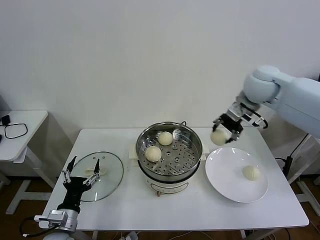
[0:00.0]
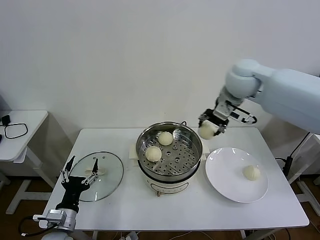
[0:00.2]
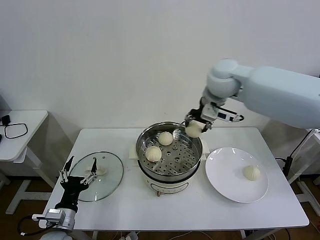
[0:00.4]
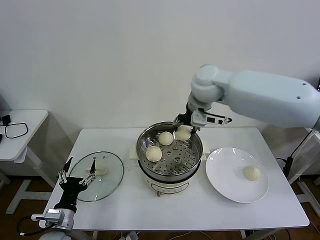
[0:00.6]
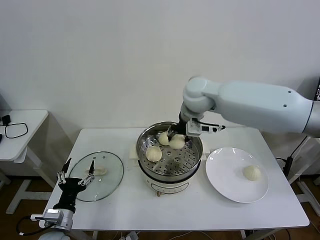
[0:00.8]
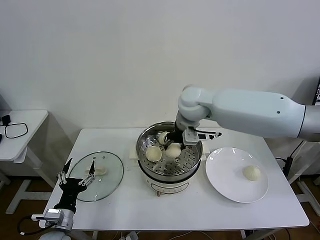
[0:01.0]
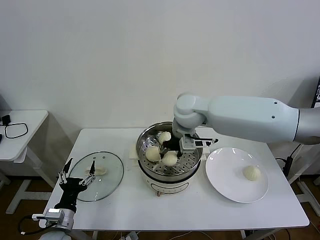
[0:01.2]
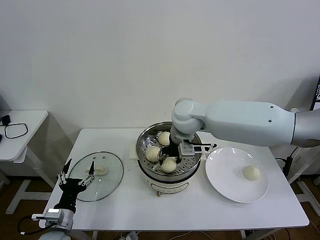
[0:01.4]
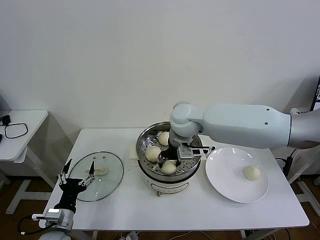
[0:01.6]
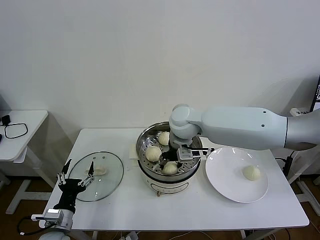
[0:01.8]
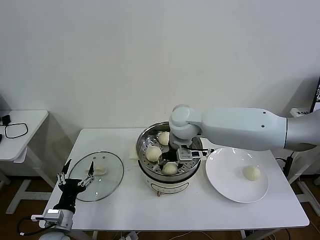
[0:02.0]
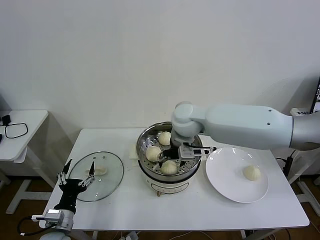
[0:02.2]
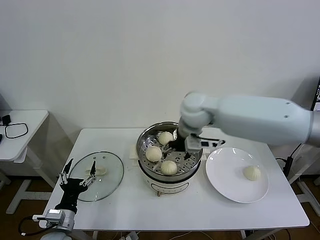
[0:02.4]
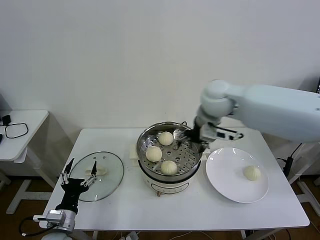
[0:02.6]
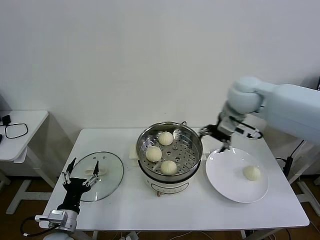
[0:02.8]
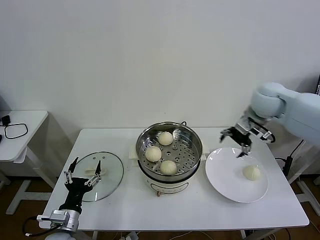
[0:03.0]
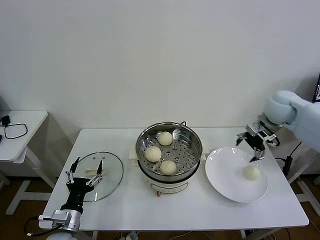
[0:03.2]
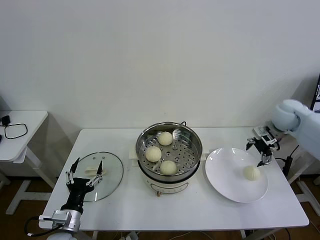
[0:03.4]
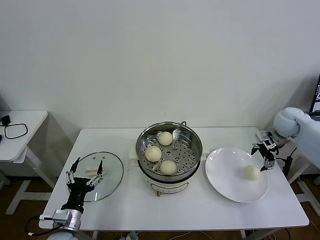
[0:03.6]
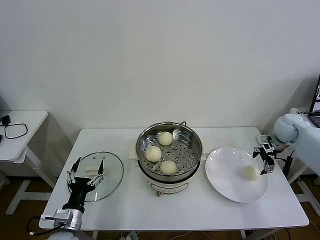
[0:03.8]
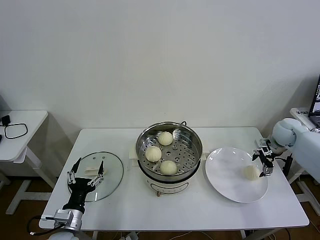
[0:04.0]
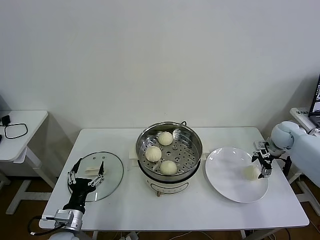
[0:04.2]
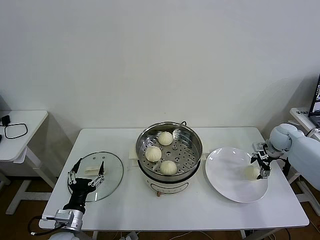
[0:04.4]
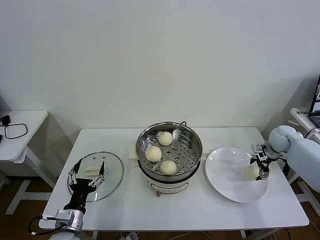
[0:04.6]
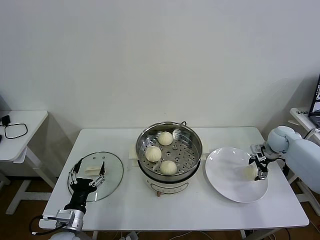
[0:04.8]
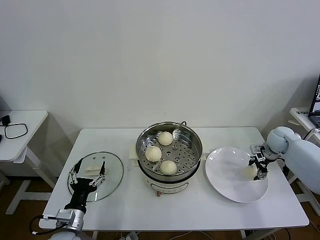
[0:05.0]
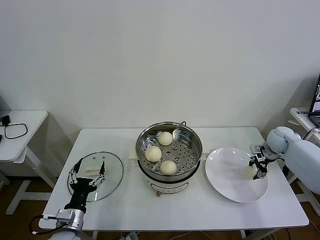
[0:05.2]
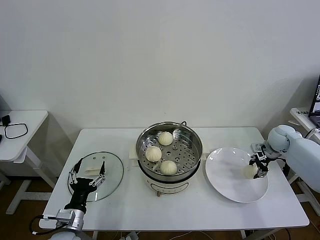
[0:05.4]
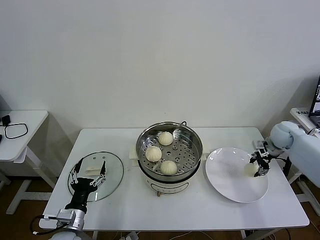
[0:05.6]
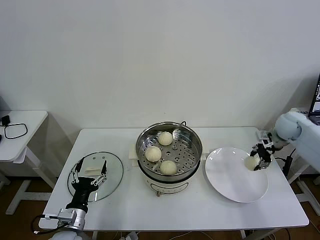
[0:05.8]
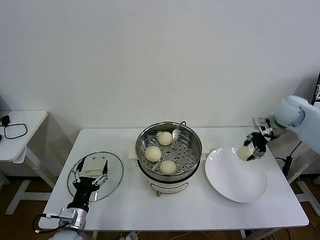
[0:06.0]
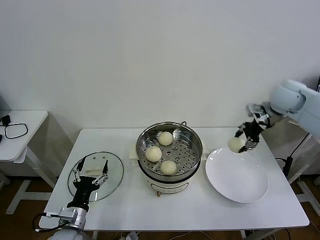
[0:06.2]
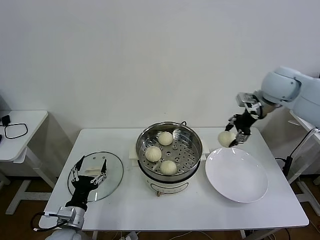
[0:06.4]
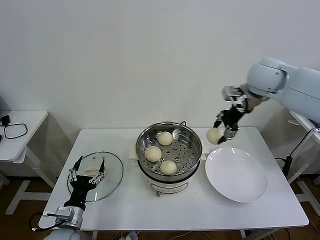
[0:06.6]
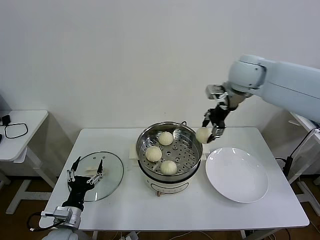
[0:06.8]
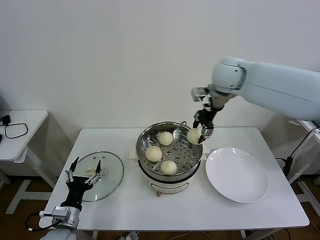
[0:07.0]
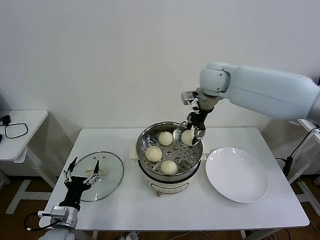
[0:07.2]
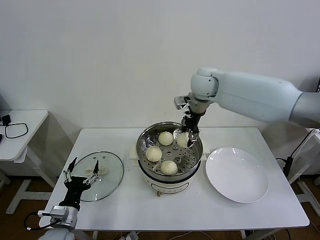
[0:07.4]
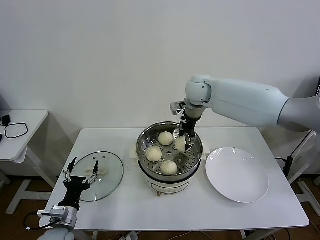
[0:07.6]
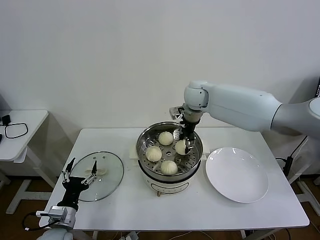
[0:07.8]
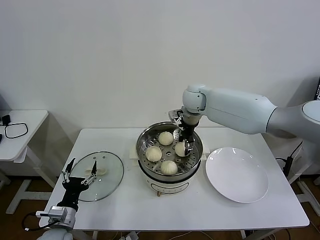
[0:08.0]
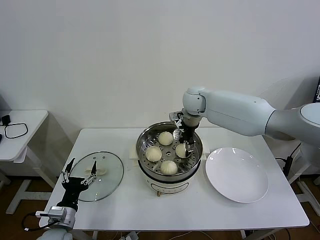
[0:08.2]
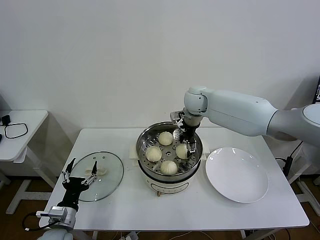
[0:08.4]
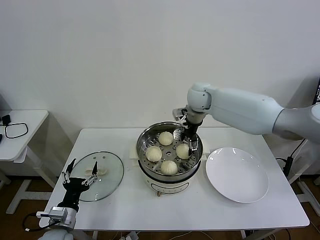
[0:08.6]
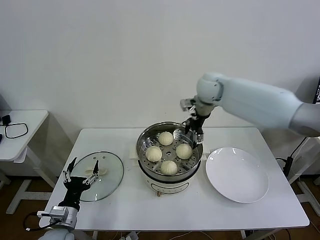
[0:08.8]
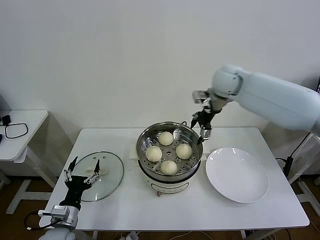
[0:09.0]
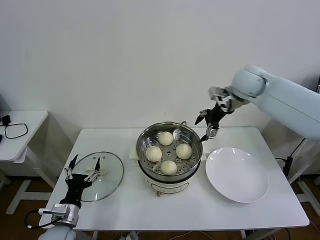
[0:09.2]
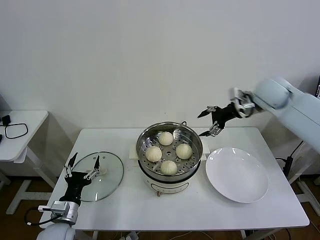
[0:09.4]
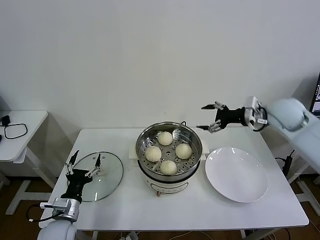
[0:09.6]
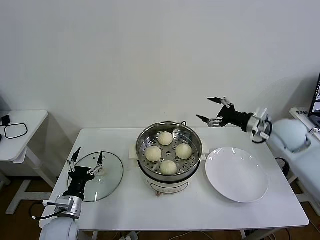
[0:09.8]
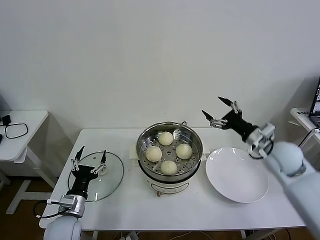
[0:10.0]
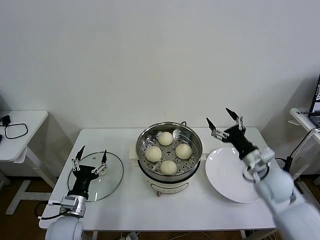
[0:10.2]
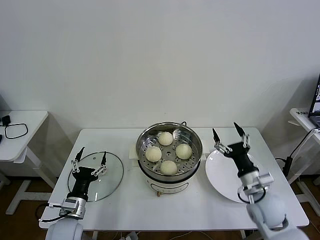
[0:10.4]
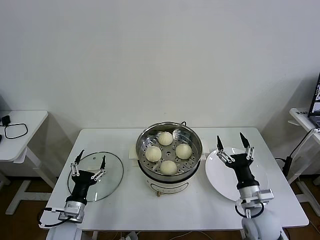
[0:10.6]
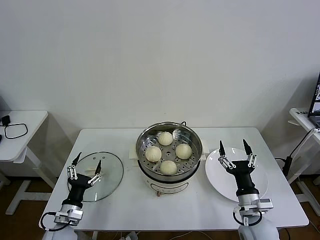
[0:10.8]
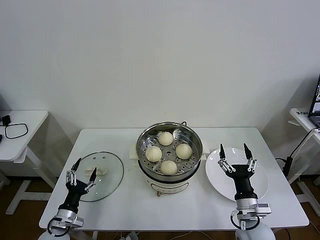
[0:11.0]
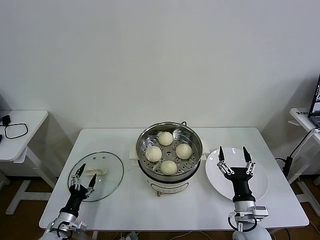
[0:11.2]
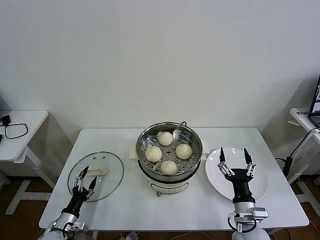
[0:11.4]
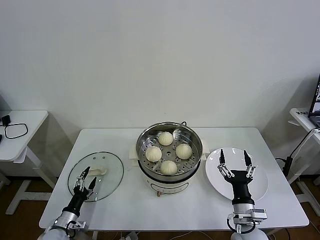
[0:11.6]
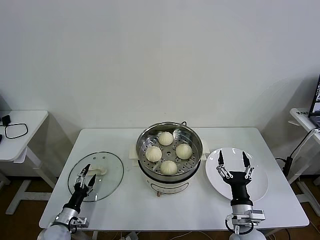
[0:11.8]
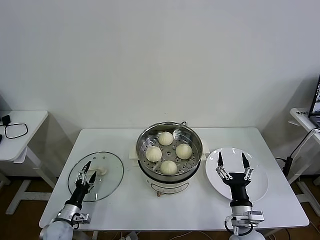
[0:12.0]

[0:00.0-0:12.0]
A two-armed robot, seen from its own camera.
Task of the whole recording: take steamed baozi put them in steamer then cover it.
Step, 0:00.0 to 0:02.0: Place the baozi on the steamer with right gripper.
Step, 0:02.4 to 0:05.0: Grasp the baozi in the plate with right gripper.
Step, 0:05.4 to 0:08.4: Place the baozi on the steamer with right gripper.
0:00.0 to 0:01.6: The right gripper goes some 20 cm to the left and downward.
0:01.6 to 0:03.0: The right gripper moves to the right, about 25 cm, and opens.
0:03.0 to 0:04.4: The right gripper heads downward and to the right, covering roughly 25 cm.
0:04.4 to 0:06.0: The right gripper is displaced upward by some 15 cm, and closes its fingers.
0:06.0 to 0:07.6: The right gripper heads to the left, covering roughly 30 cm.
0:07.6 to 0:09.0: The right gripper heads to the right, covering approximately 10 cm, and opens its fingers.
0:09.0 to 0:10.4: The right gripper heads backward and downward, covering about 40 cm.
0:10.4 to 0:12.0: The left gripper moves downward and to the left, approximately 15 cm; the right gripper travels backward, downward and to the left by roughly 15 cm.

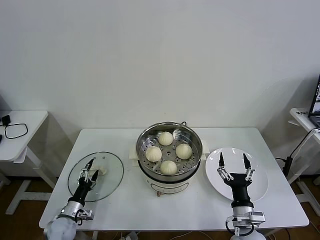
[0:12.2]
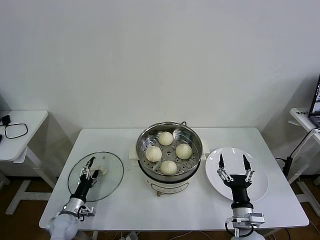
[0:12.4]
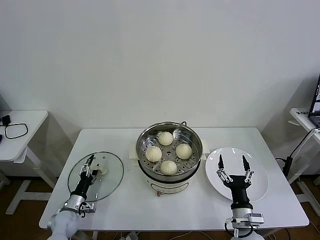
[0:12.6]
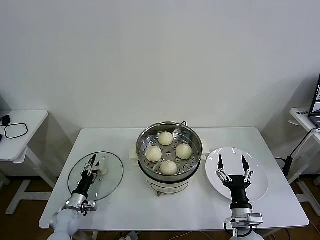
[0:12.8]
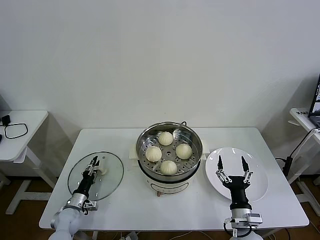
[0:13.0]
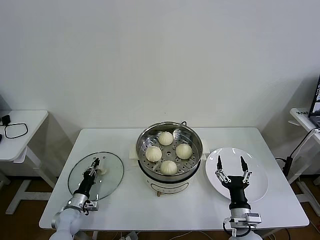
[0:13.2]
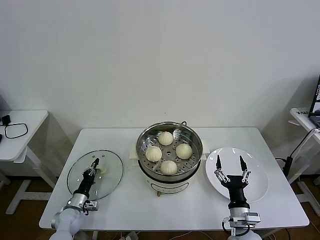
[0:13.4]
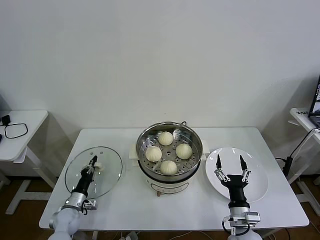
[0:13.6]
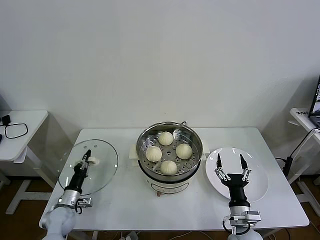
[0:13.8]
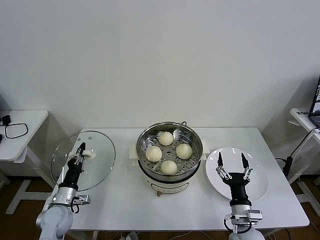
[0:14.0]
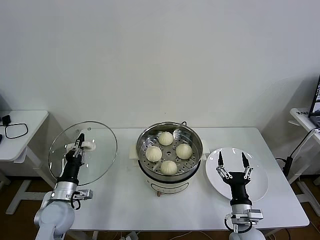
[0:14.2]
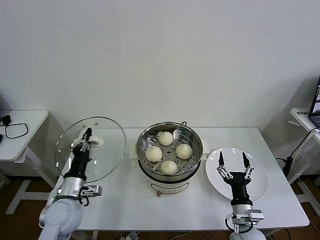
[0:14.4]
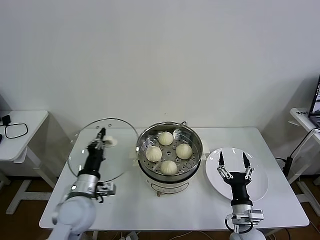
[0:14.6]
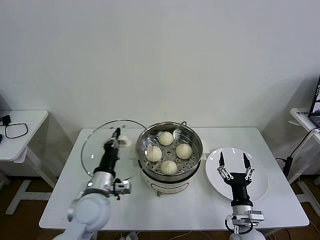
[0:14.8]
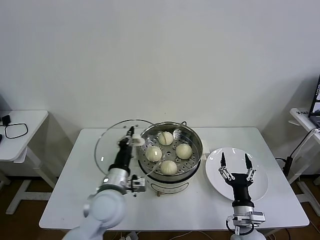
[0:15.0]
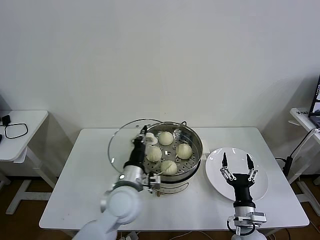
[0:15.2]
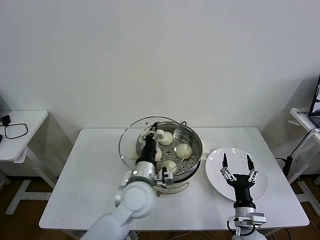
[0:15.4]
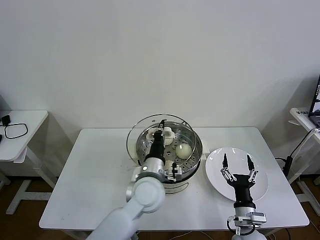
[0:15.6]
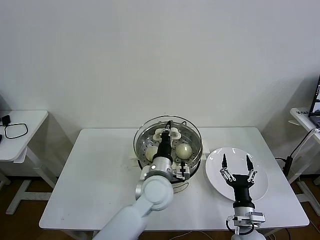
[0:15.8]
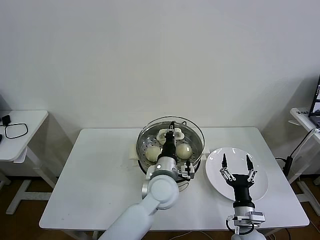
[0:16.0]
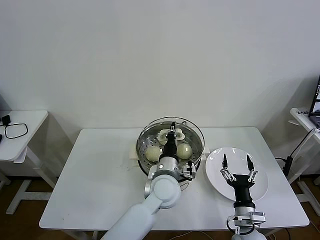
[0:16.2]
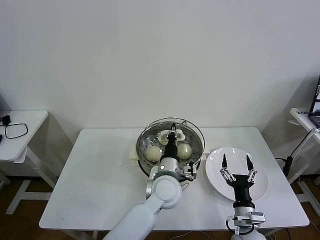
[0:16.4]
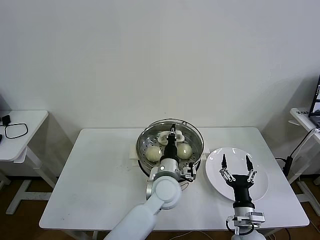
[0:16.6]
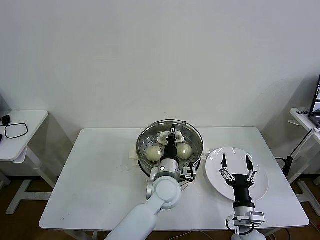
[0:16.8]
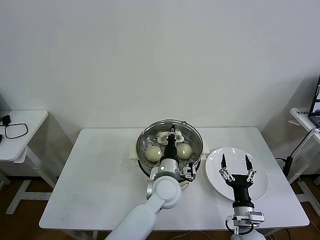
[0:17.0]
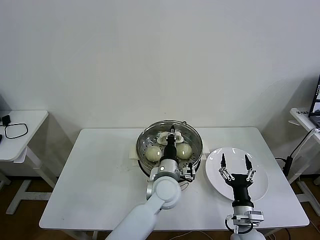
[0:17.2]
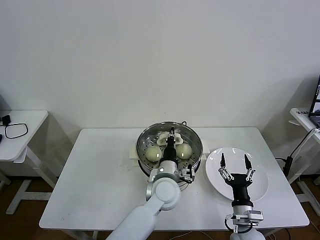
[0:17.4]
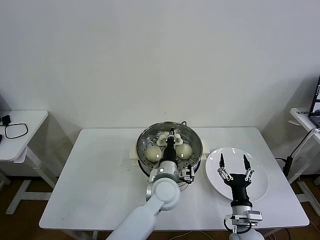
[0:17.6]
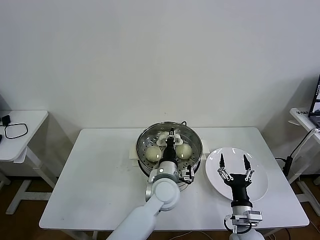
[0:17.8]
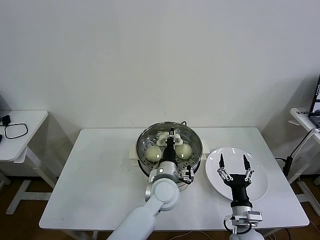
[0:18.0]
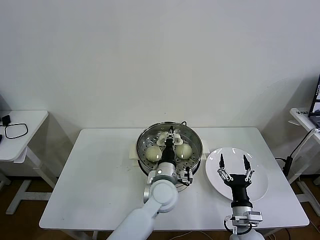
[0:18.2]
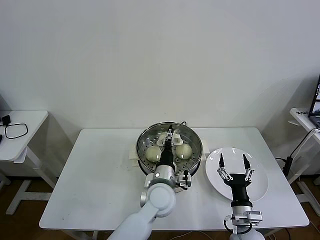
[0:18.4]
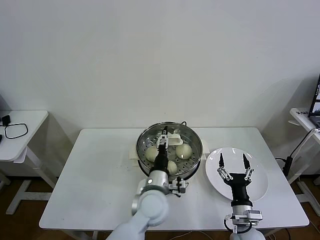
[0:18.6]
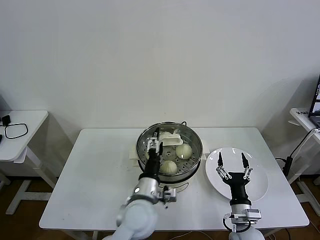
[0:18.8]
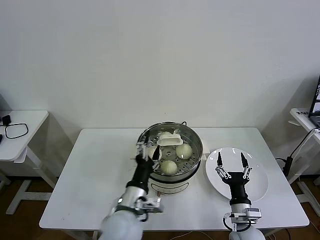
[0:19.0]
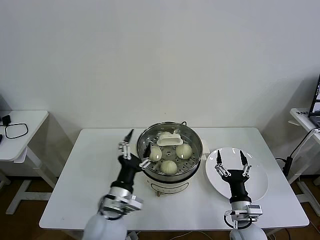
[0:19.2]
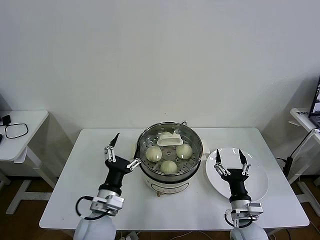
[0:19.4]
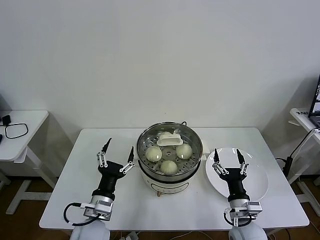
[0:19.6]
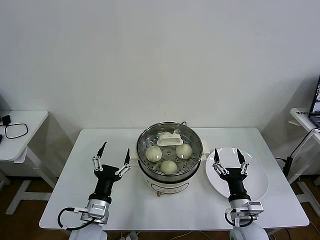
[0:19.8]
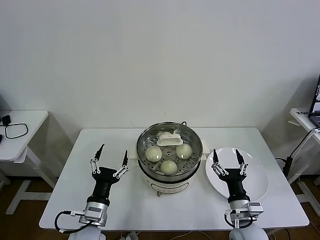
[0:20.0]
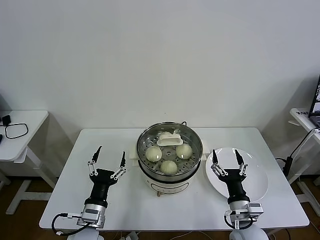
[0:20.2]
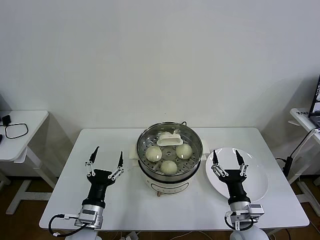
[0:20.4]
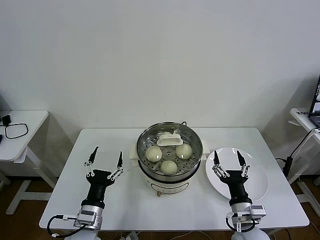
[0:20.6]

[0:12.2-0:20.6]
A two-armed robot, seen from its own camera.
Task of the whole recording: take steamed baozi put them in steamer then cover it.
Step, 0:13.8 to 0:18.2: Place the pot lid on the steamer with left gripper.
0:12.2 to 0:13.6: The left gripper closes.
0:13.6 to 0:15.0: The left gripper goes about 30 cm upward and to the right.
0:15.0 to 0:16.4: The left gripper travels to the right by some 15 cm.
0:16.4 to 0:17.8: The grippers move only a little.
0:17.8 to 0:19.2: The left gripper travels to the left and backward by some 15 cm, and opens its fingers.
0:19.2 to 0:20.6: The left gripper is displaced to the left and downward by about 10 cm.
